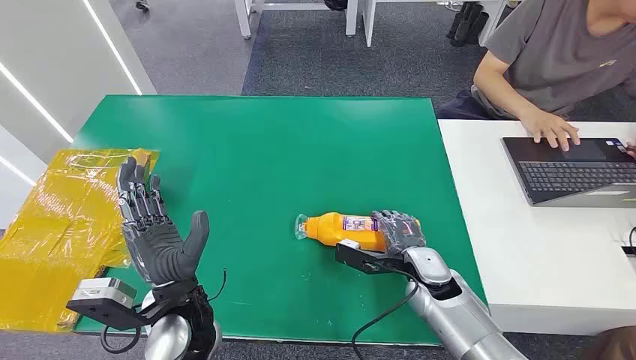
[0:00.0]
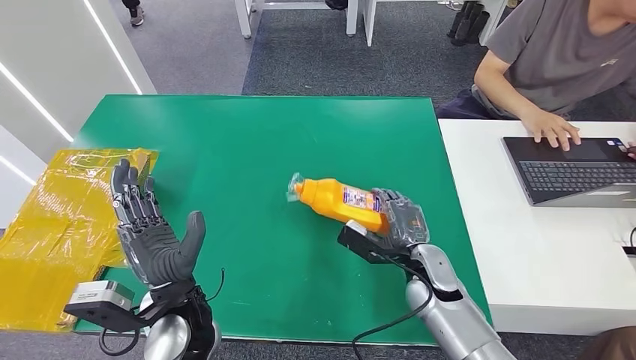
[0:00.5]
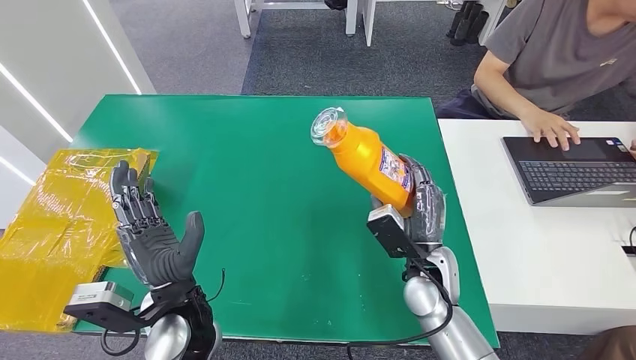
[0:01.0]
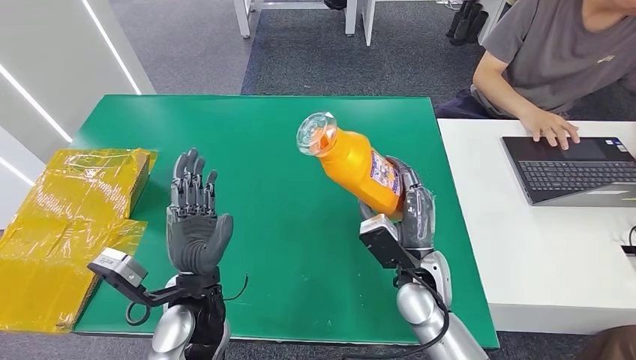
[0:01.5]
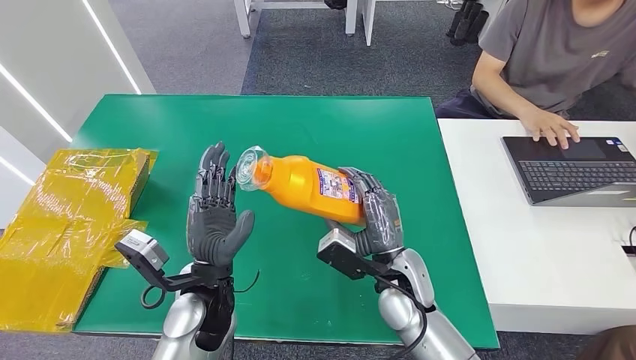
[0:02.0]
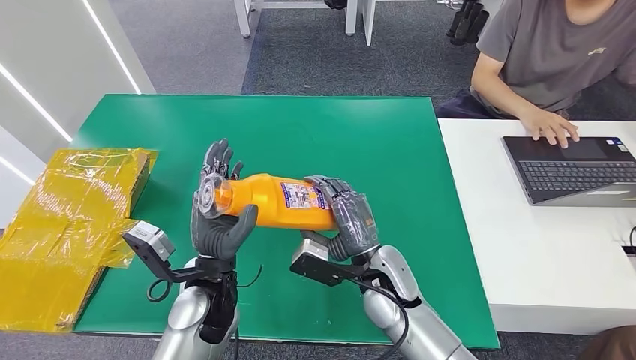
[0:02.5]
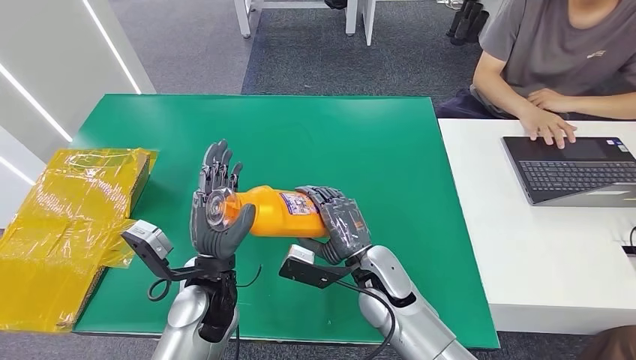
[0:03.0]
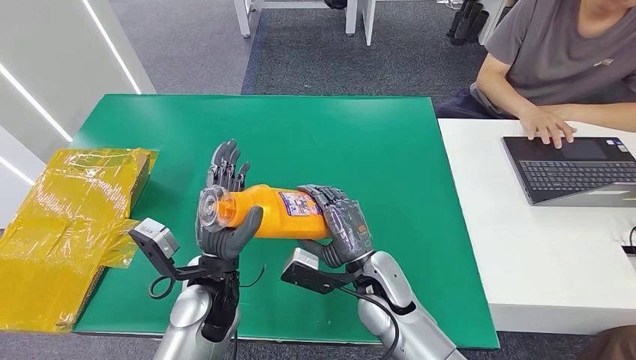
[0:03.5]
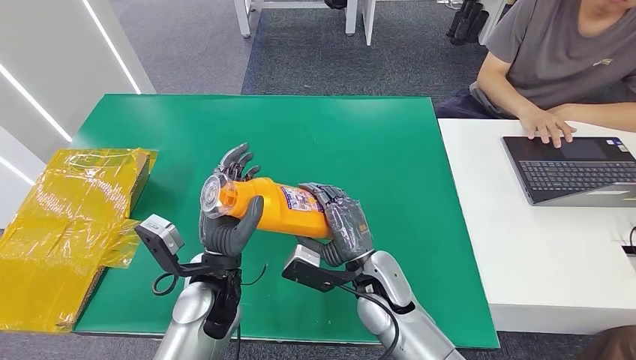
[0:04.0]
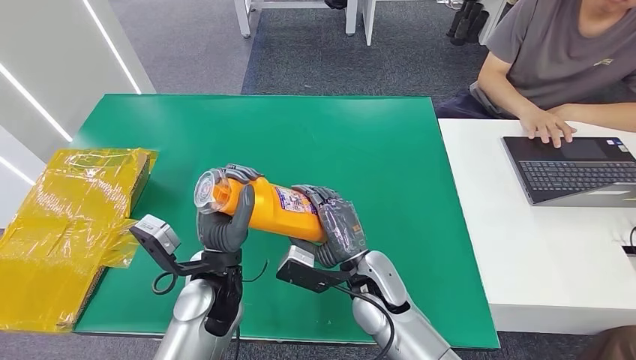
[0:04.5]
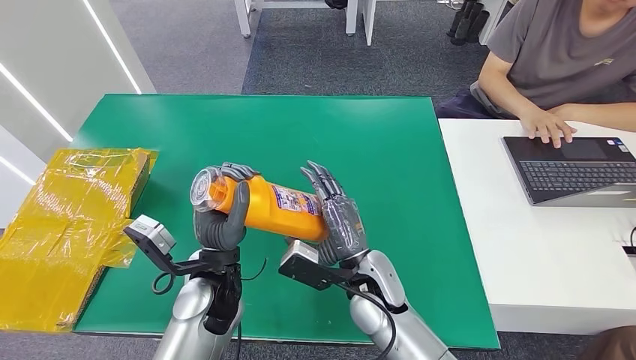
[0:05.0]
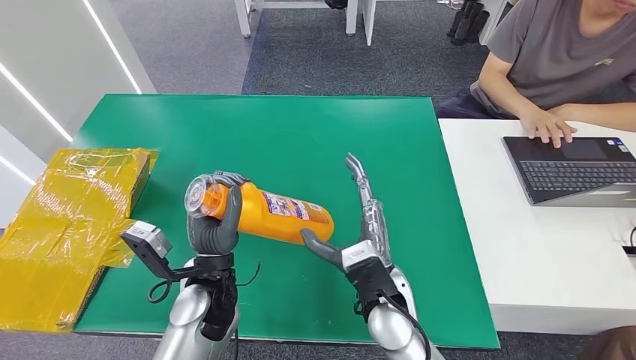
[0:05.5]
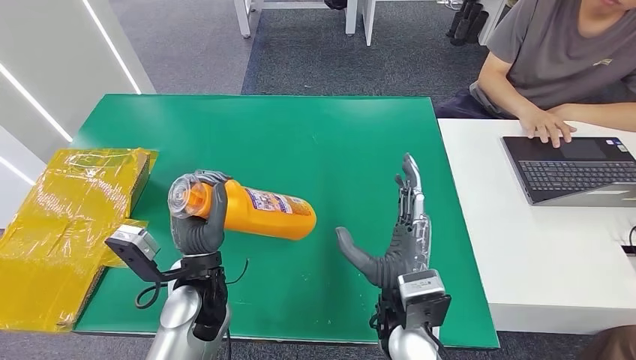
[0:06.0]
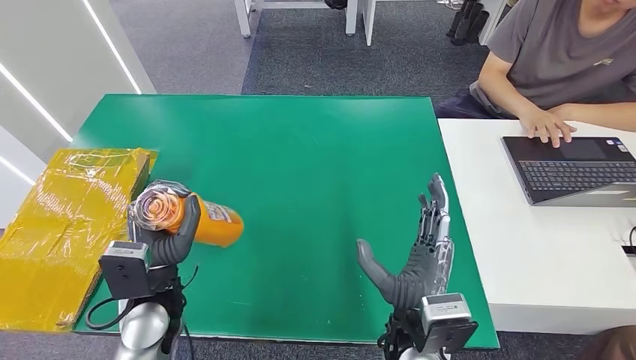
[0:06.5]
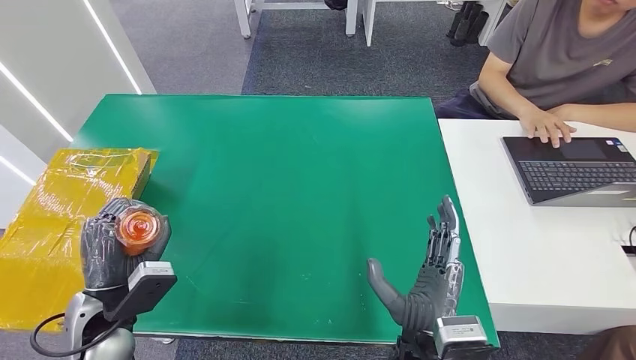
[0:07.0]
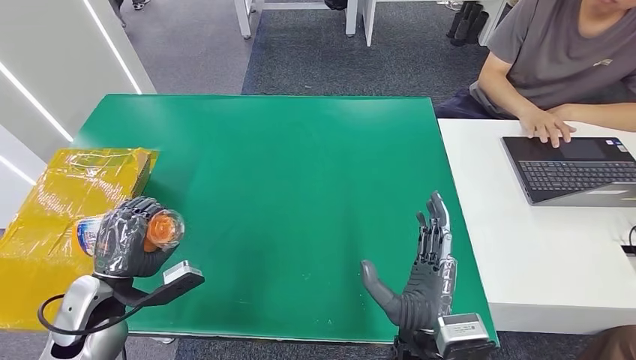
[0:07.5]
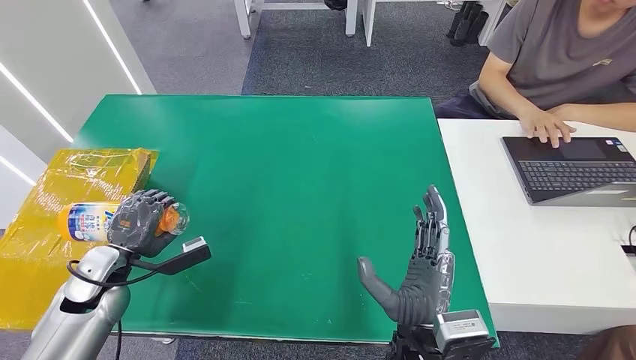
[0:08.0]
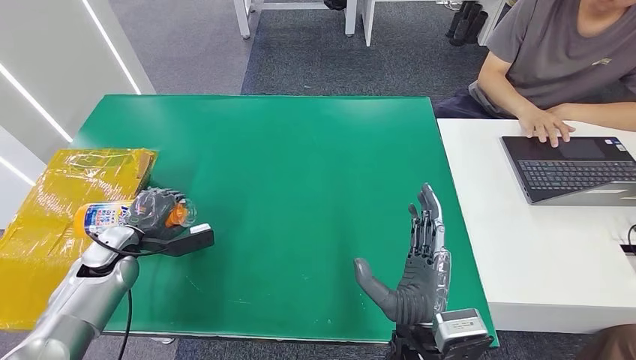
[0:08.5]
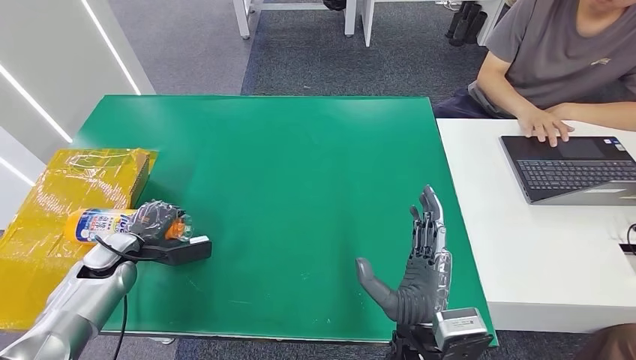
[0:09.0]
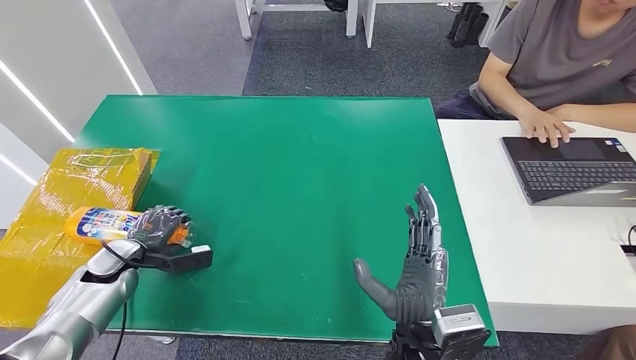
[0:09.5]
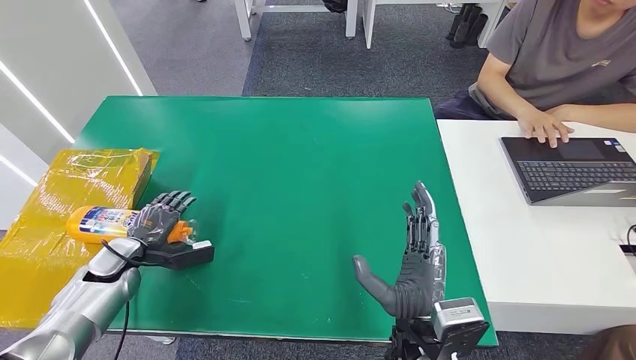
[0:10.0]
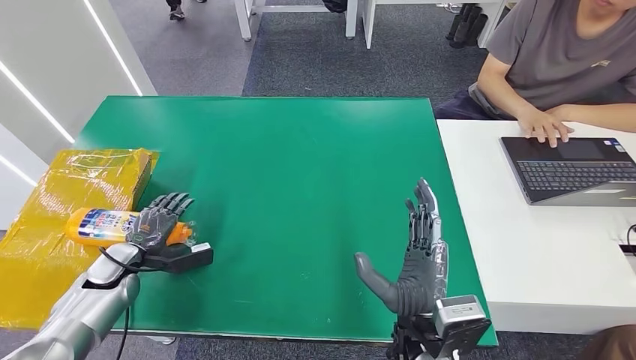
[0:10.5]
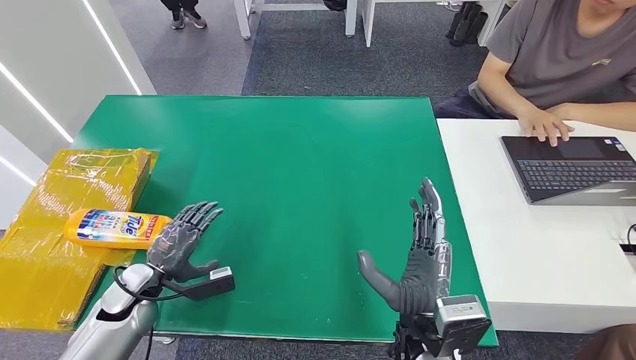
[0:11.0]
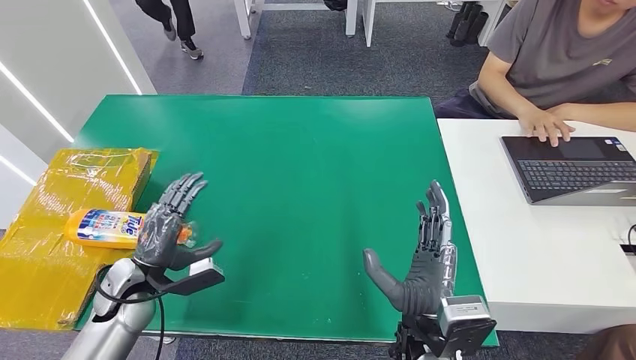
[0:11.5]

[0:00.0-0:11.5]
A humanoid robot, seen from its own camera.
Step, 0:00.0 to 0:03.0: Pick up the bottle from the table.
Step, 0:03.5 to 0:11.5: Turn the bottle to the front side.
0:02.0 to 0:04.0: The hands make only small movements.
0:04.0 to 0:06.0: The right hand heads backward, covering roughly 5 cm.
0:06.0 to 0:07.5: The left hand goes some 20 cm to the left, while the right hand moves backward, about 5 cm.
0:07.5 to 0:09.5: The left hand shifts roughly 15 cm forward, to the left and downward.
0:09.5 to 0:11.5: The left hand shifts roughly 10 cm to the right.

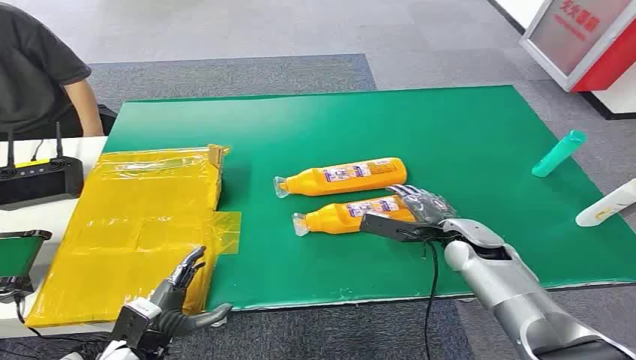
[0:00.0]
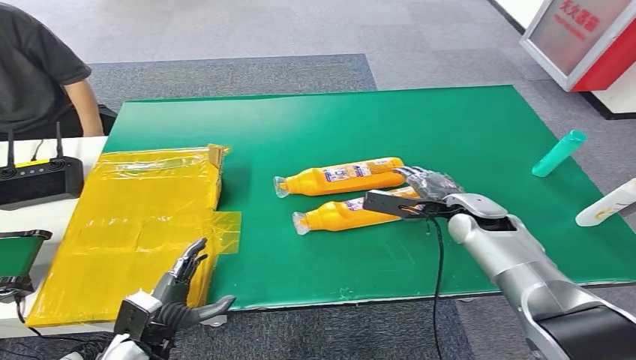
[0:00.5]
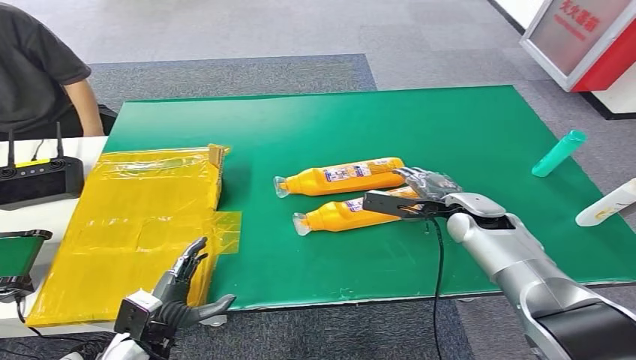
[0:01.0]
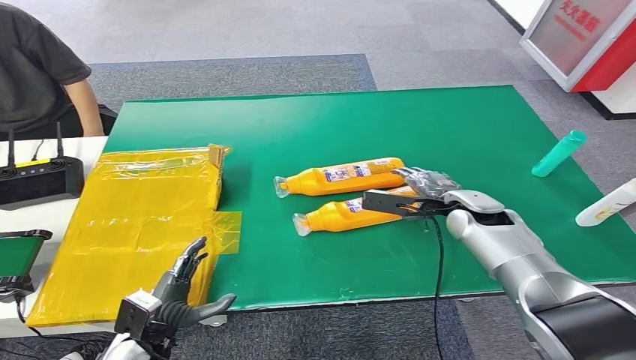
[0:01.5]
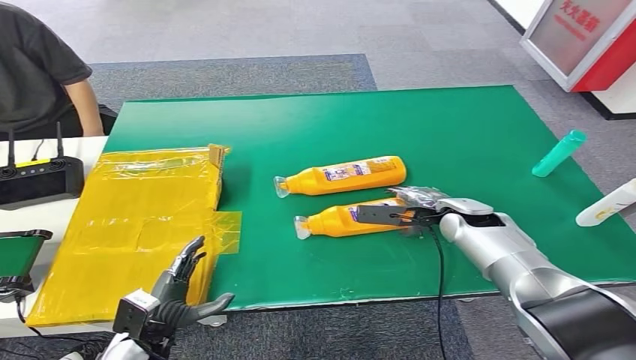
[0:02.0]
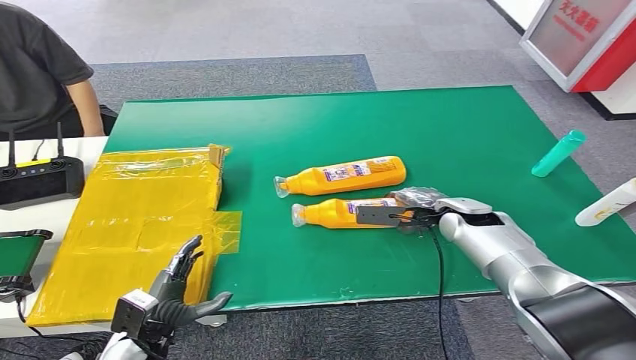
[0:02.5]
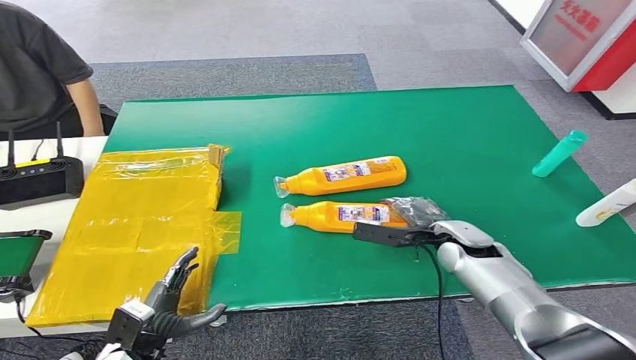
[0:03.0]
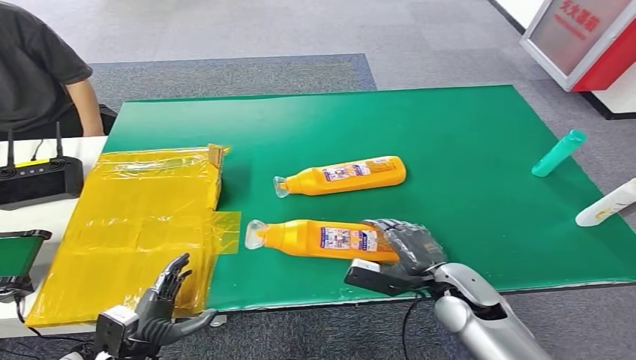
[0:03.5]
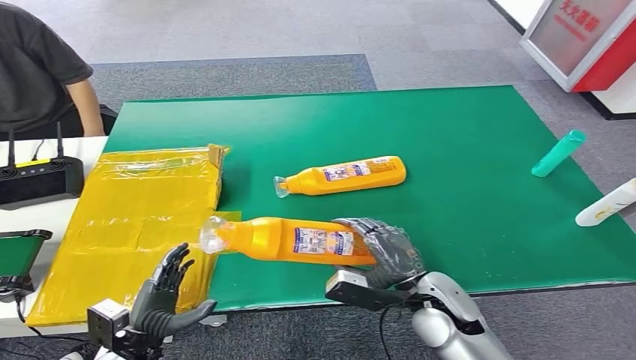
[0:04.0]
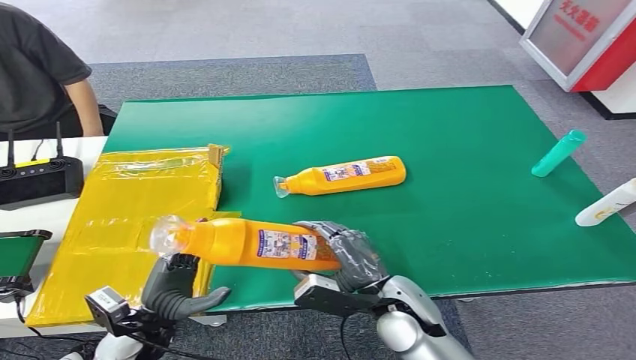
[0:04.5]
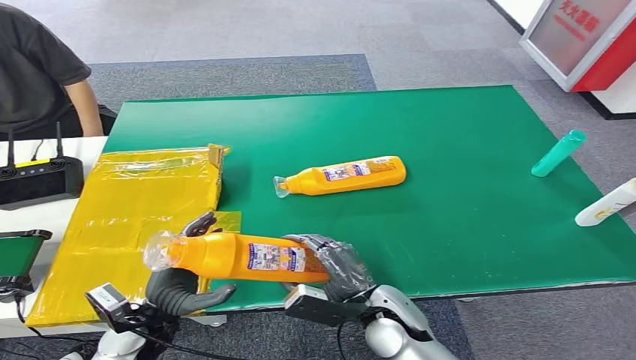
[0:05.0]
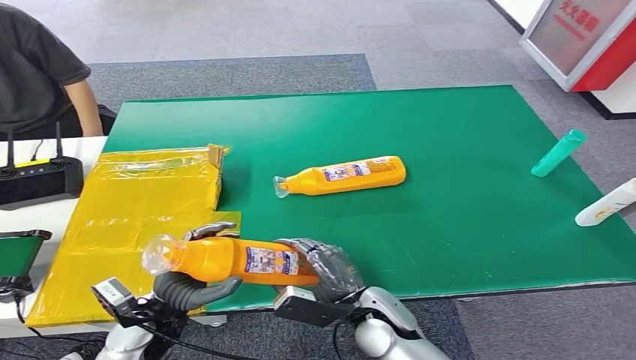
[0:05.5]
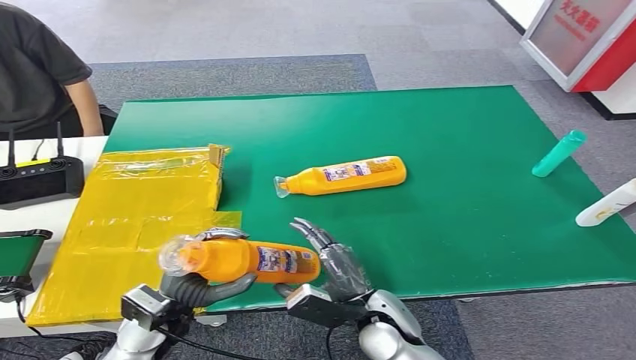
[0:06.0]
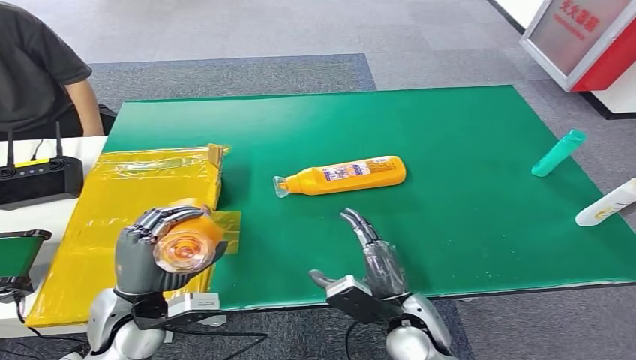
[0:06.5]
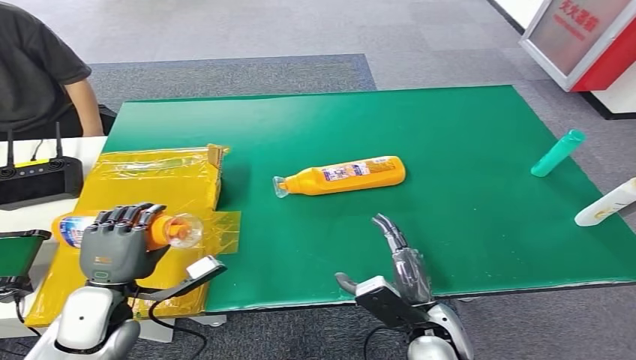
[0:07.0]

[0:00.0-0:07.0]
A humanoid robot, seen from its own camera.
Step, 0:00.0 to 0:04.0: Pick up the bottle from the table.
Step, 0:04.5 to 0:07.0: Turn the bottle to the front side.
0:02.0 to 0:03.5: The right hand heads backward, covering about 15 cm.
0:03.5 to 0:05.0: The right hand moves to the left, approximately 10 cm. The left hand moves upward and forward, some 10 cm.
0:05.0 to 0:07.0: The right hand goes roughly 5 cm to the right, while the left hand travels upward by about 5 cm.
